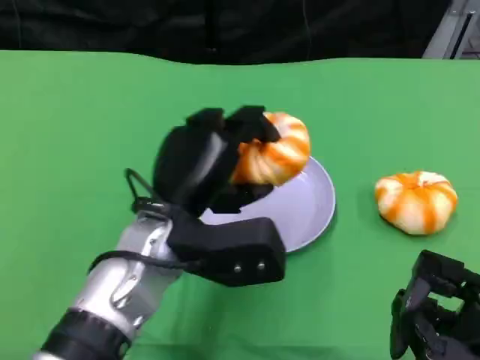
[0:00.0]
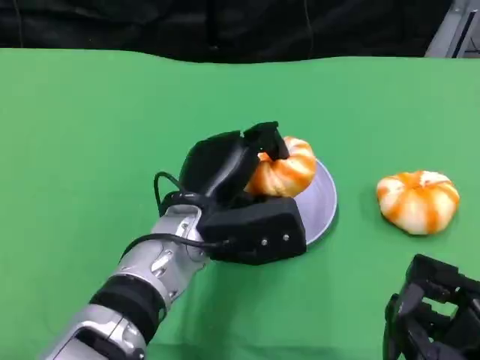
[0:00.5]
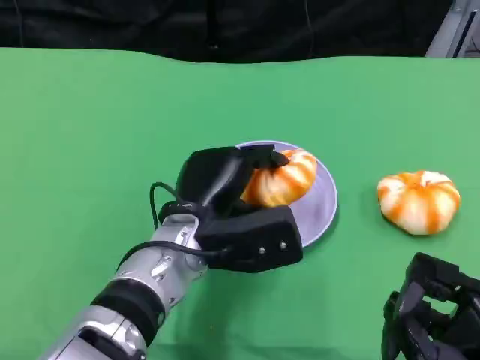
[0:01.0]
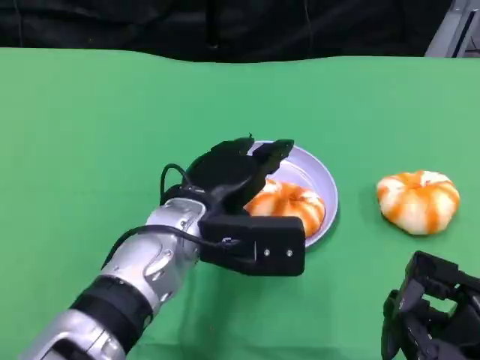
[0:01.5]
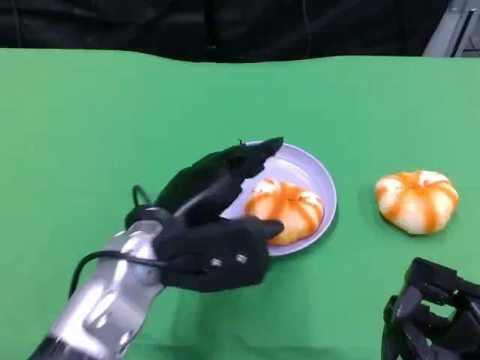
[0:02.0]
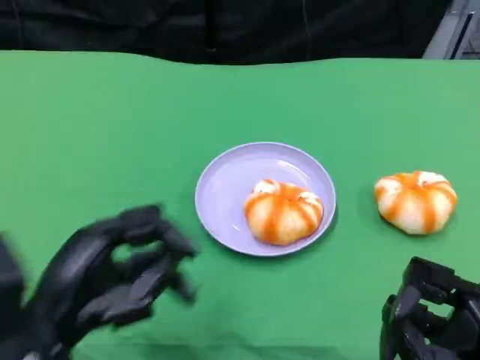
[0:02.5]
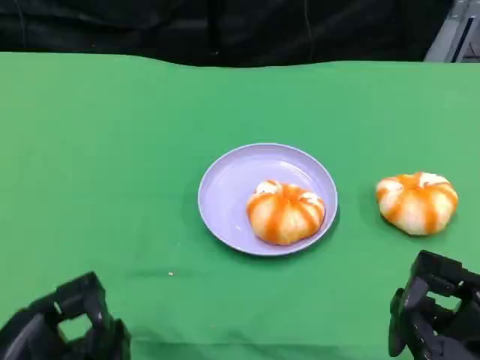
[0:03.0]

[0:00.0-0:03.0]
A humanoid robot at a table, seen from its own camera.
Task of the whole recording: Grasp the bread from the table and place it into the plate.
0:01.5 to 0:03.0: The left hand goes some 25 cm to the left and backward.
